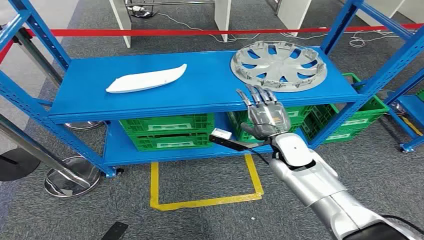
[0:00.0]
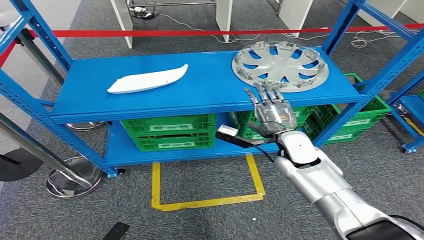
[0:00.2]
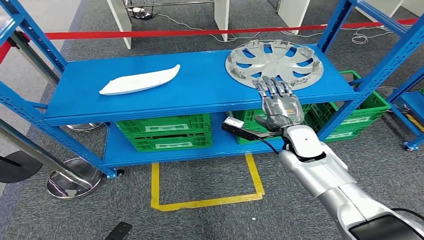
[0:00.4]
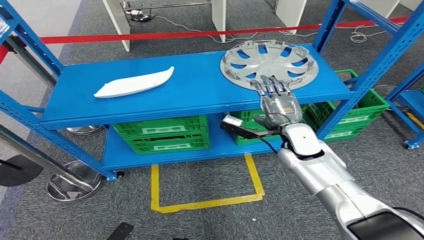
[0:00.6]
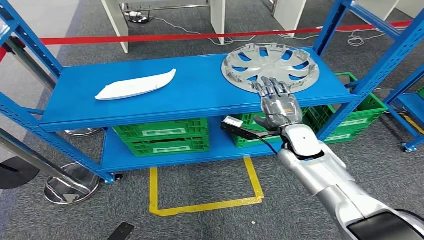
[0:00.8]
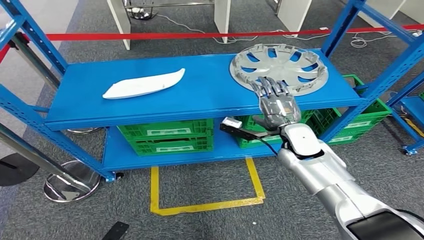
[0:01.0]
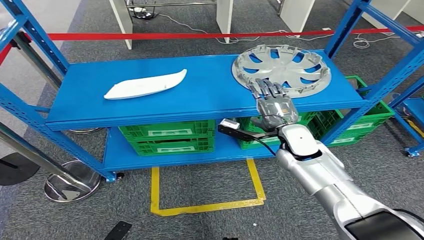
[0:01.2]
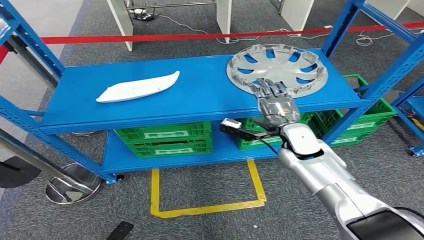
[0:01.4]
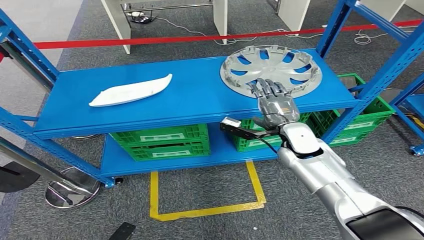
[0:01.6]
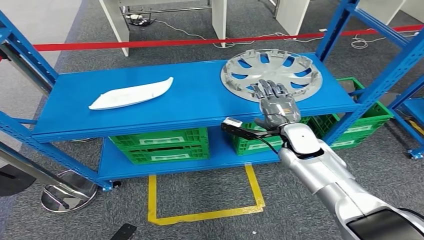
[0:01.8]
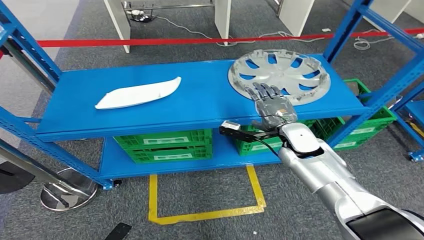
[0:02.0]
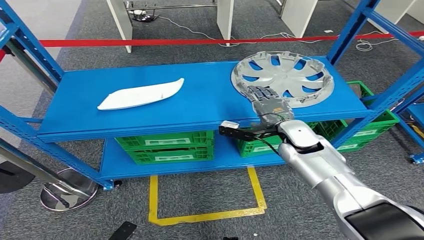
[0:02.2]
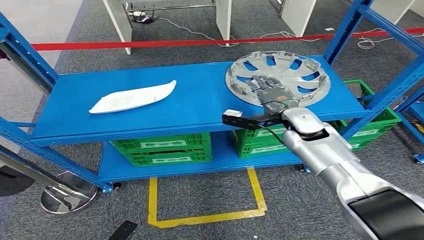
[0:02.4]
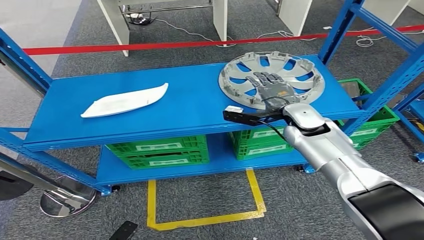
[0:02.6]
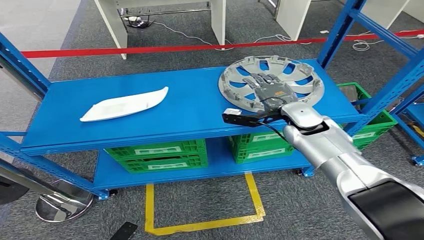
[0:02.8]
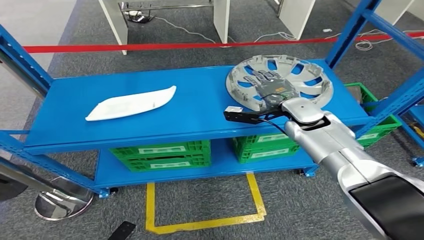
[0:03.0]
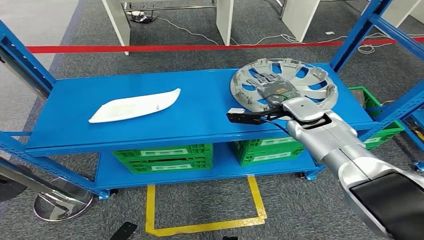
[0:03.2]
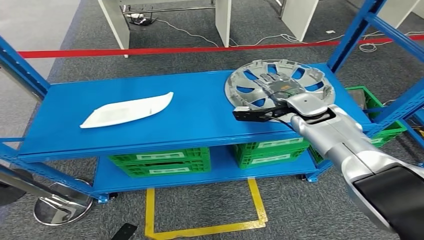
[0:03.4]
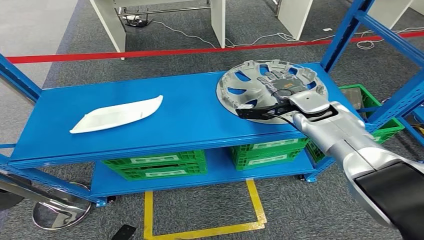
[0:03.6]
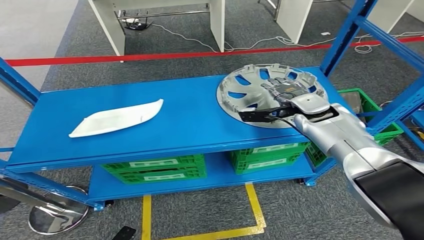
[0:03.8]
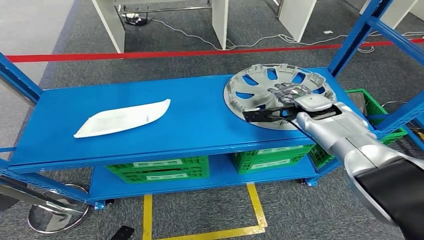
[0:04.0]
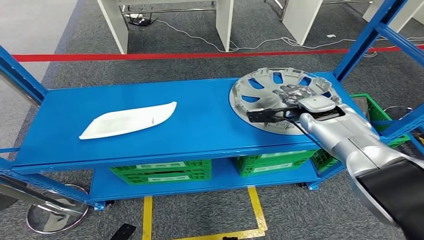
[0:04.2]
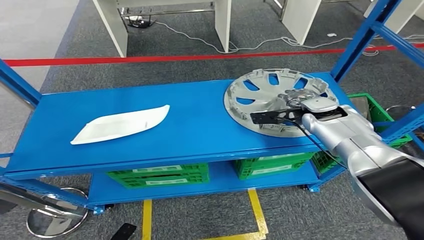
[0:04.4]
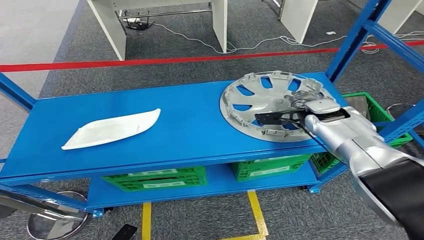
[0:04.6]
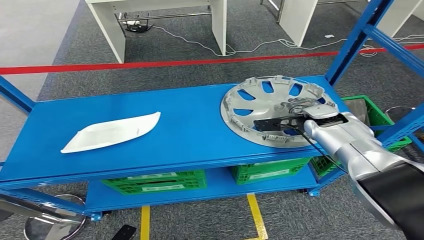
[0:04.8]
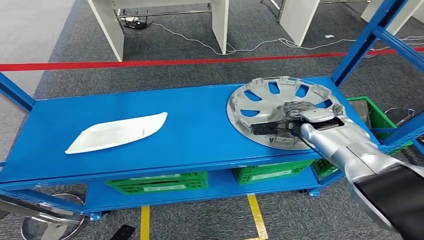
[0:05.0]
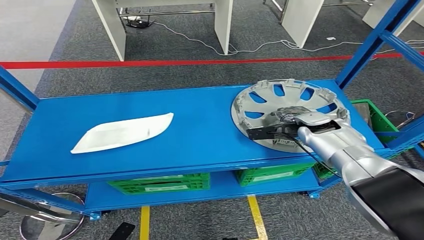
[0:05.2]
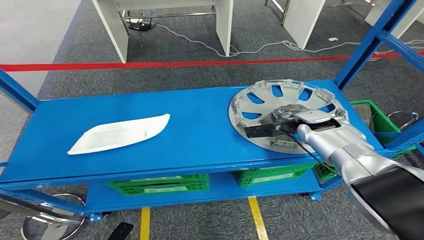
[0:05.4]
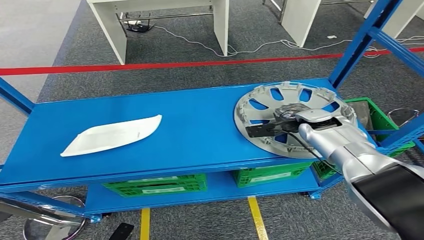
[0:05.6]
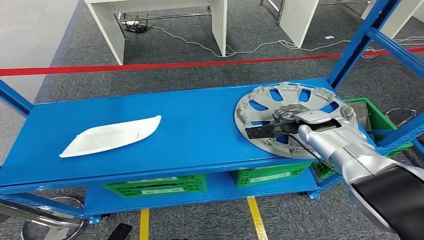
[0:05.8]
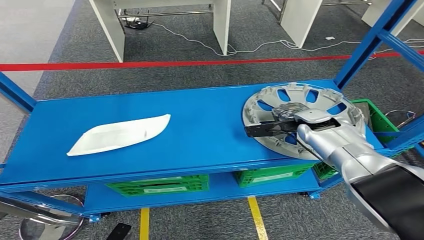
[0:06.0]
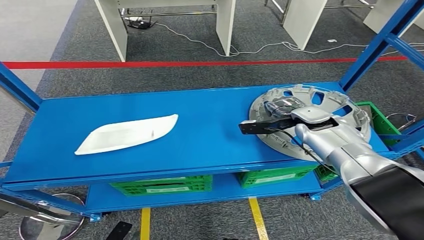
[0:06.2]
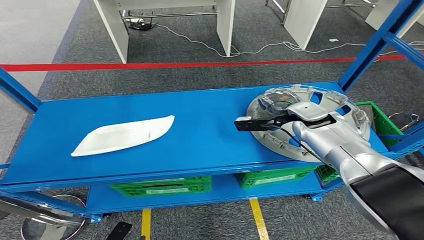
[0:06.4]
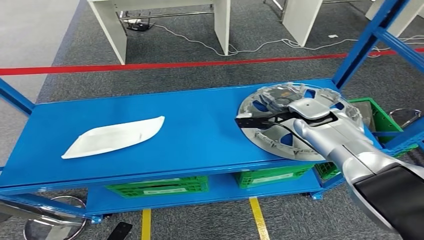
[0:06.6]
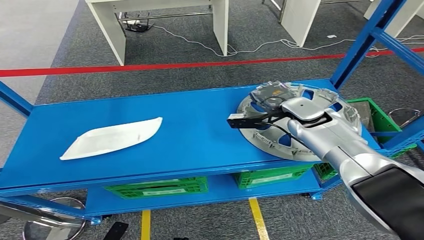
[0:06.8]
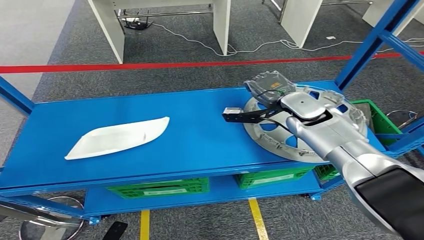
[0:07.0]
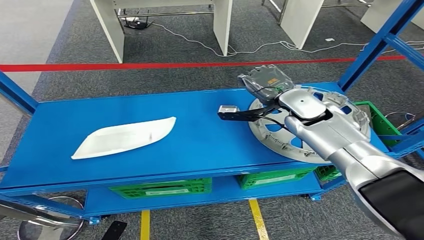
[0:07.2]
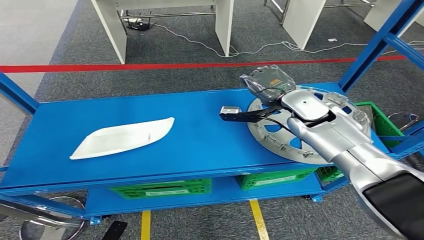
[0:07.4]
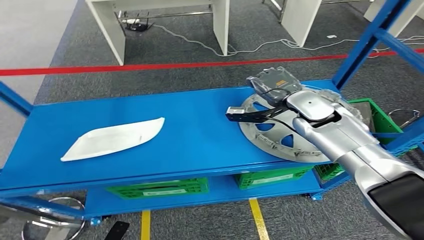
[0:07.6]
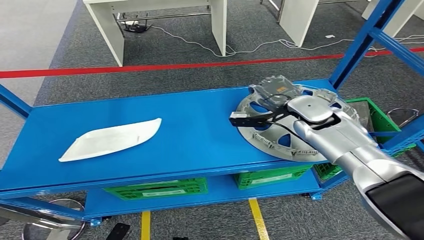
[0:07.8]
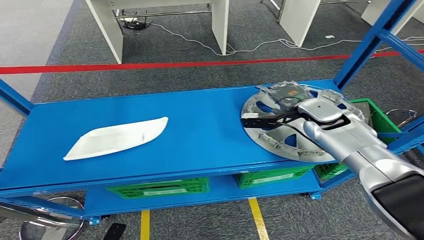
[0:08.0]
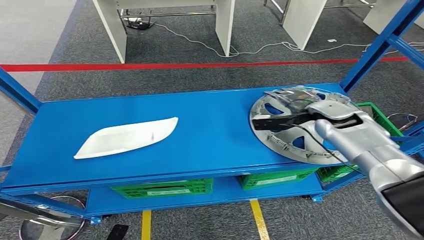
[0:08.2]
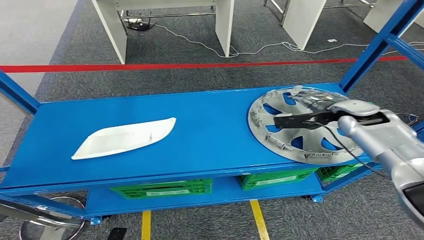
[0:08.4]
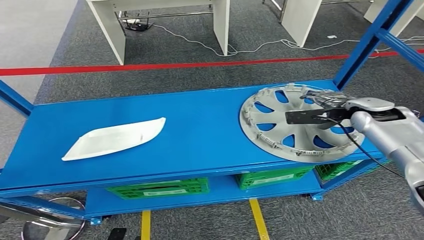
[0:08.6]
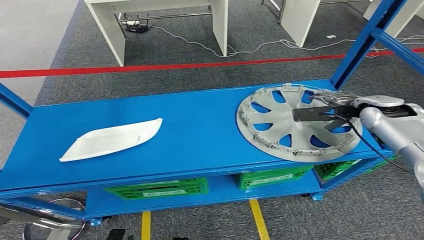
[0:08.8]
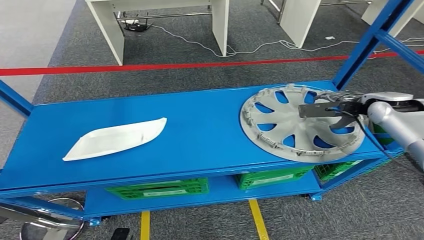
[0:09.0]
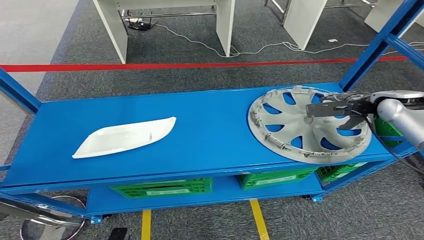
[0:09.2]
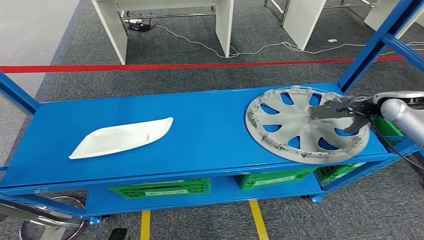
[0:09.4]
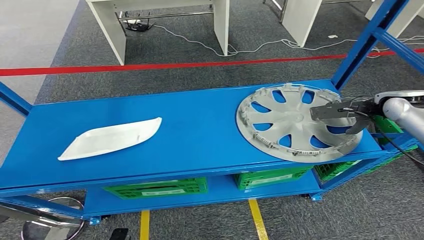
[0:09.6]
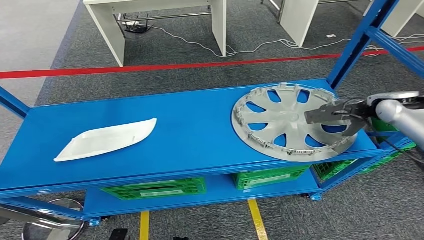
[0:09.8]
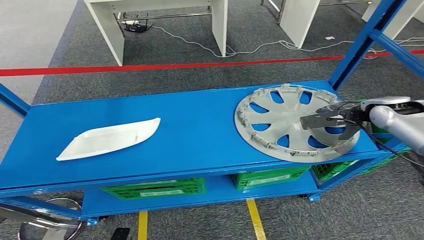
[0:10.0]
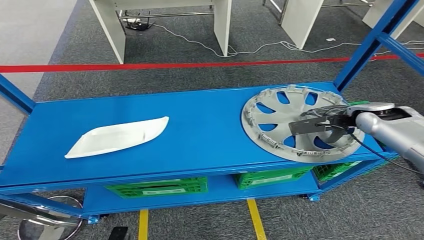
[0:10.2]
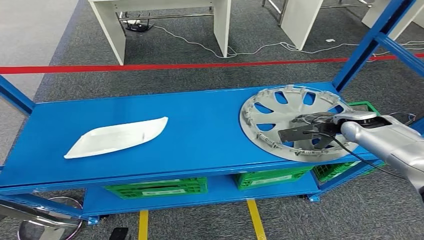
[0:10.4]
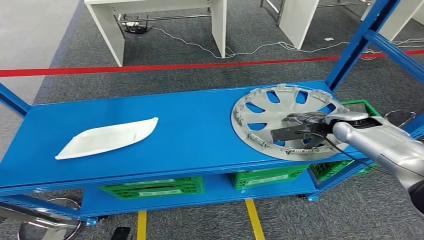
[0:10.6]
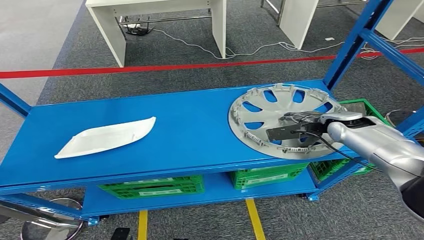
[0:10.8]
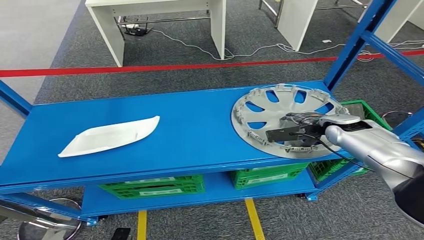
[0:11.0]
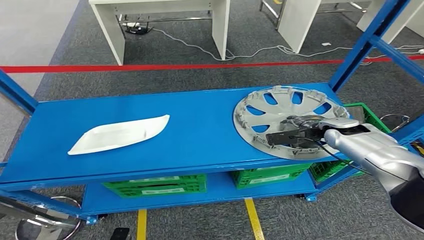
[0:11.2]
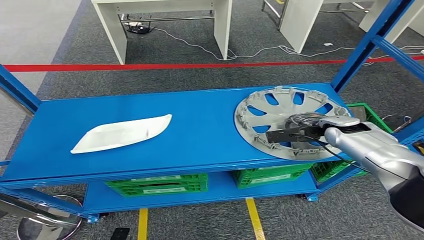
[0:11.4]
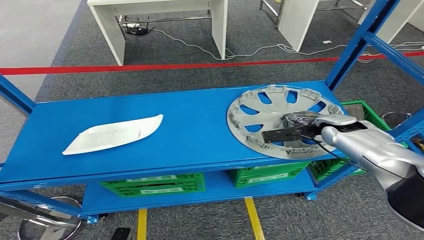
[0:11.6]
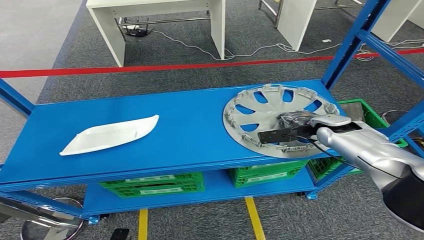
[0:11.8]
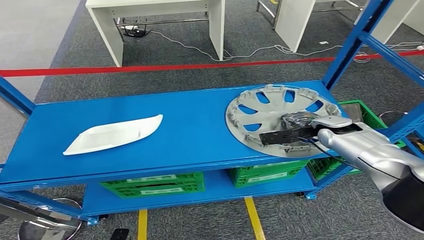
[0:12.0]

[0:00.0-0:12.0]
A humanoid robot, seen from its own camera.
0:07.6 to 0:09.0: The right hand goes about 20 cm to the right.
0:09.0 to 0:10.4: The right hand shifts some 5 cm downward.

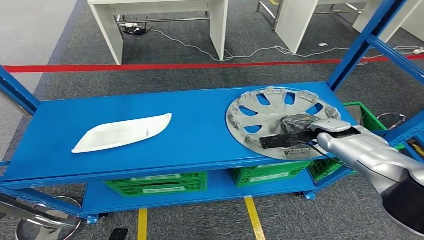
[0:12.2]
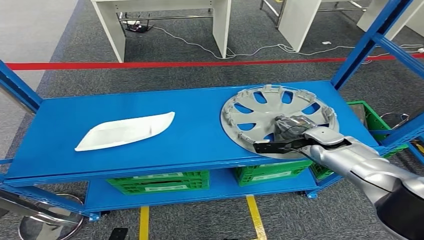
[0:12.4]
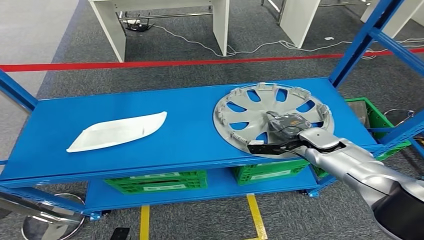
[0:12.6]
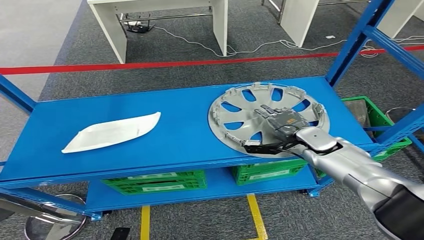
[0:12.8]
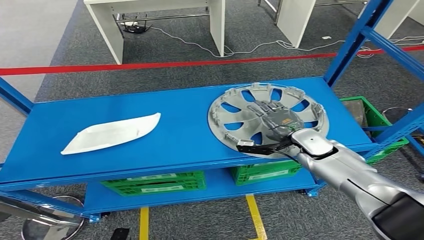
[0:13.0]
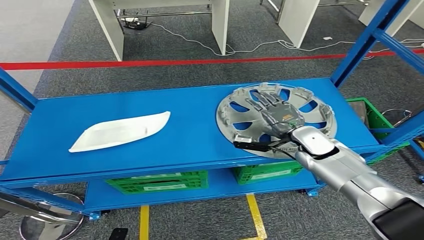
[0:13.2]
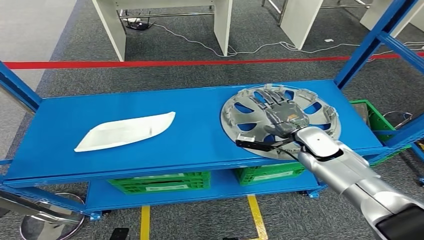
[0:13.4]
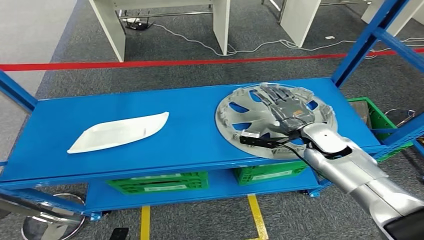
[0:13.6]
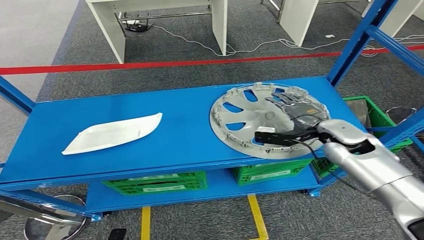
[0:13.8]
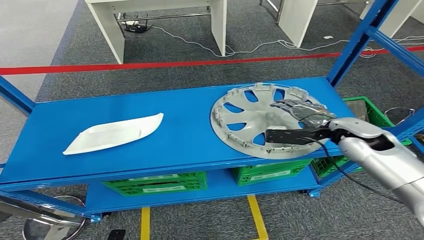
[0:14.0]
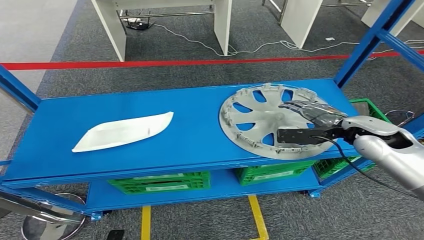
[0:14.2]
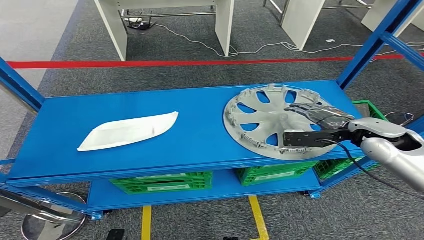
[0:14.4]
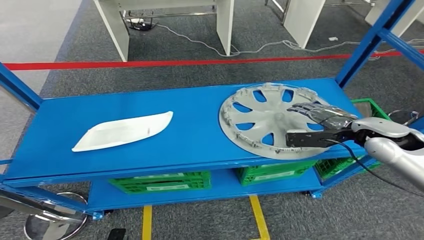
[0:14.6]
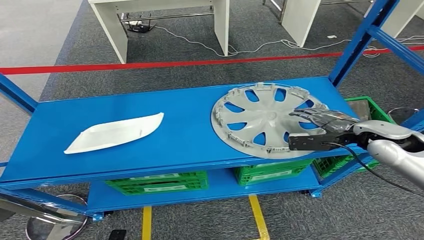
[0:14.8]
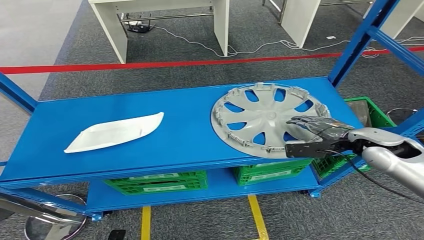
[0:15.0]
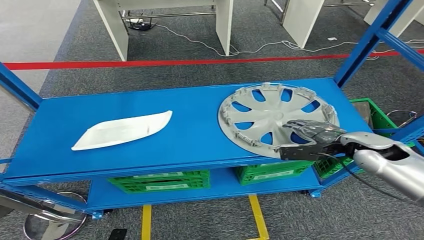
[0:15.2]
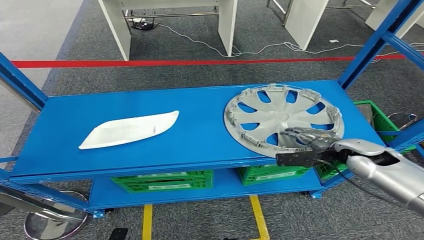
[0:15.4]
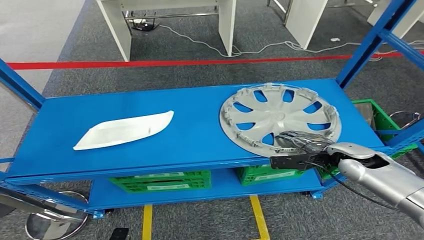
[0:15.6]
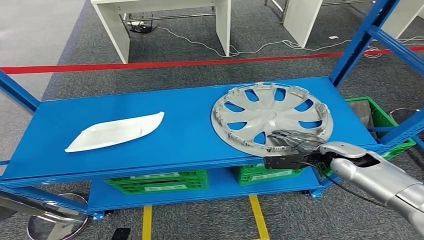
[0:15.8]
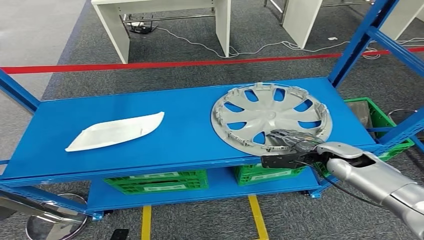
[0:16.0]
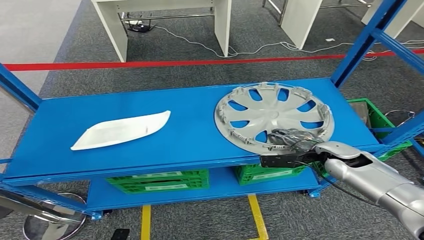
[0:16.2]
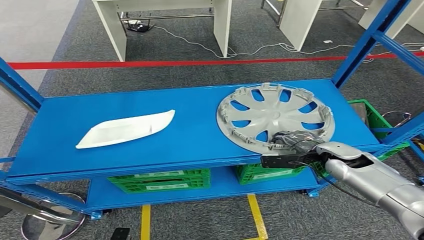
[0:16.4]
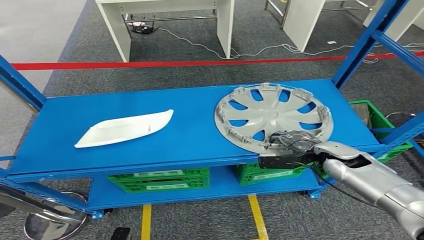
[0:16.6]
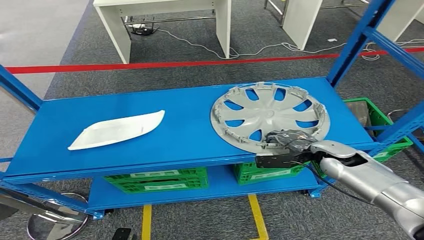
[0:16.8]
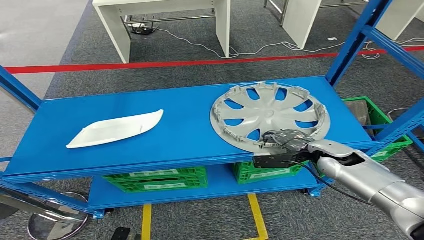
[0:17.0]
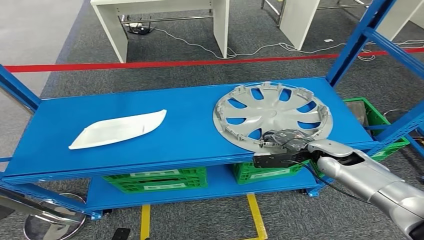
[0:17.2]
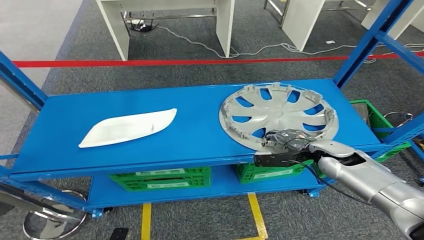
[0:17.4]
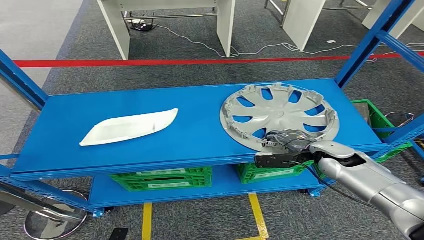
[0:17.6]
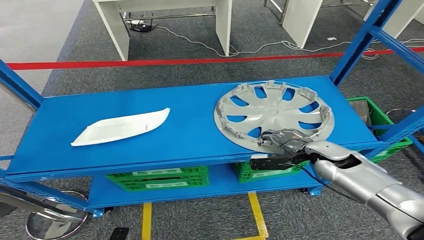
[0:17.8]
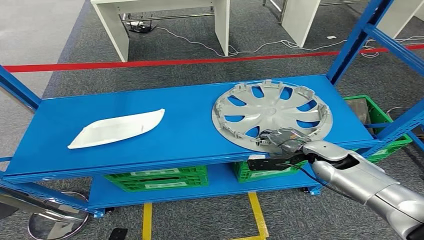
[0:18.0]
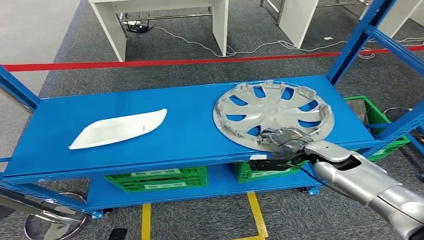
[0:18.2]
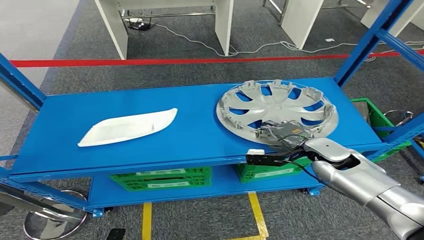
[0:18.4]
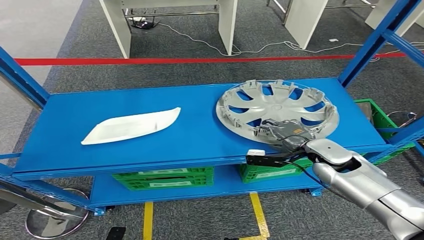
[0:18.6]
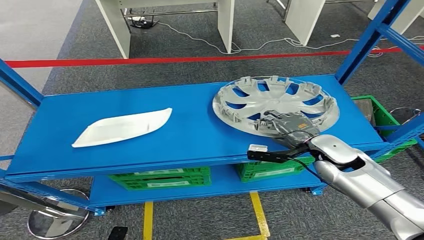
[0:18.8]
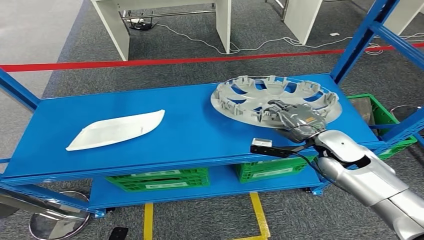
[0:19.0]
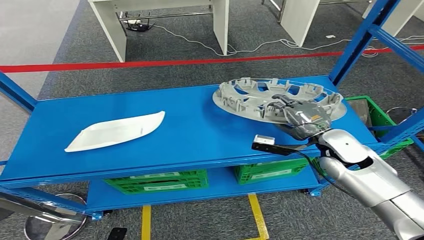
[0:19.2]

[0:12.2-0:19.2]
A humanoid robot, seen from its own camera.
0:13.6 to 0:15.0: The right hand is displaced to the right by roughly 10 cm.
0:16.4 to 0:17.8: The hands make only small movements.
